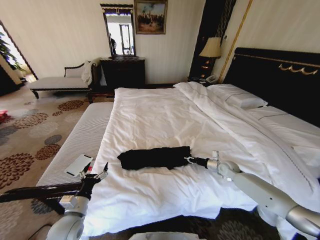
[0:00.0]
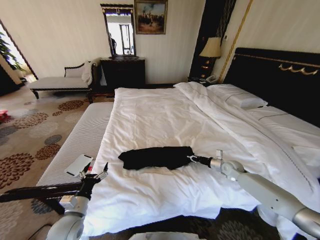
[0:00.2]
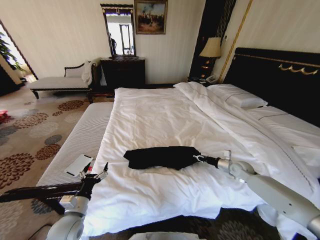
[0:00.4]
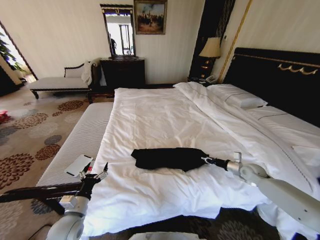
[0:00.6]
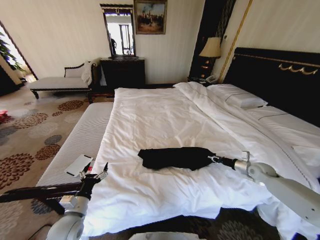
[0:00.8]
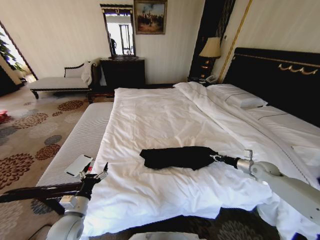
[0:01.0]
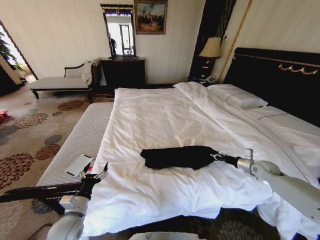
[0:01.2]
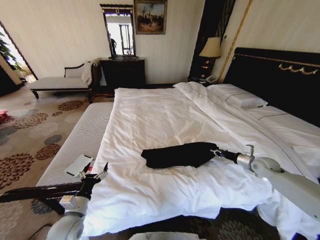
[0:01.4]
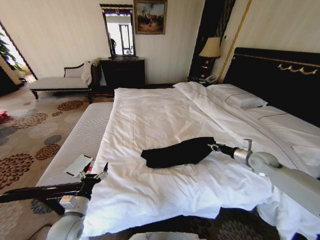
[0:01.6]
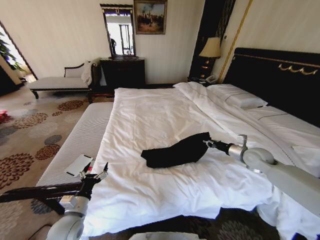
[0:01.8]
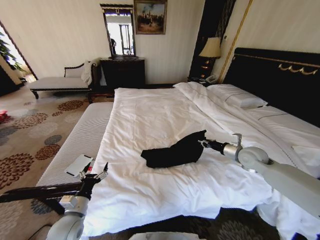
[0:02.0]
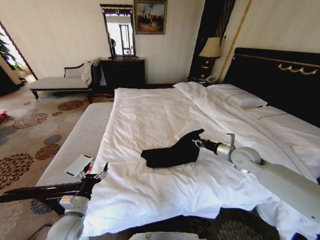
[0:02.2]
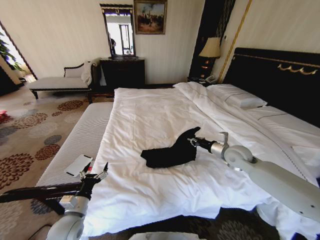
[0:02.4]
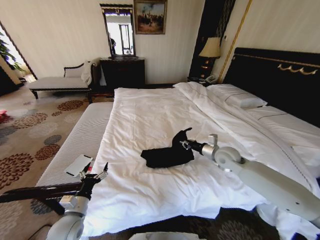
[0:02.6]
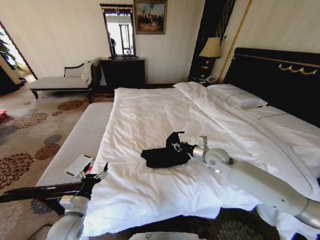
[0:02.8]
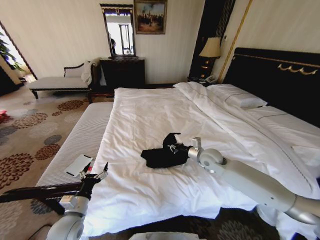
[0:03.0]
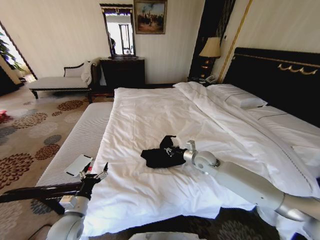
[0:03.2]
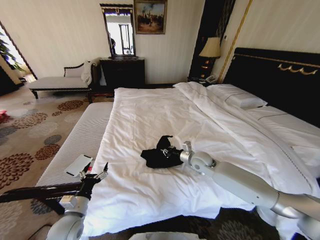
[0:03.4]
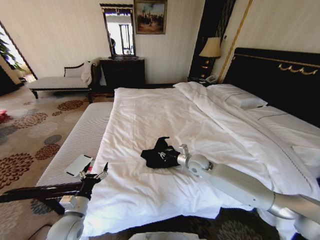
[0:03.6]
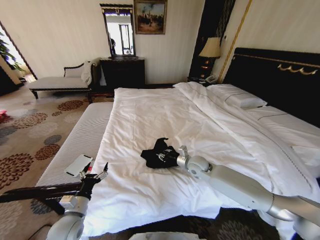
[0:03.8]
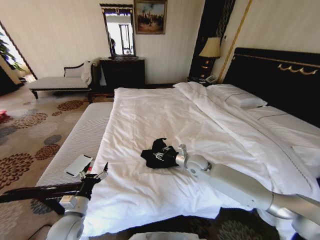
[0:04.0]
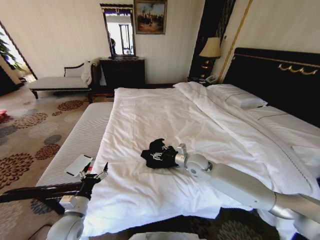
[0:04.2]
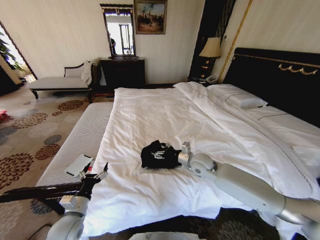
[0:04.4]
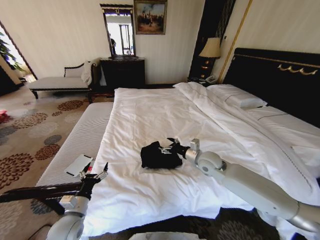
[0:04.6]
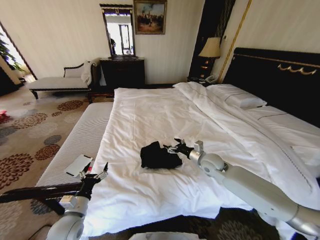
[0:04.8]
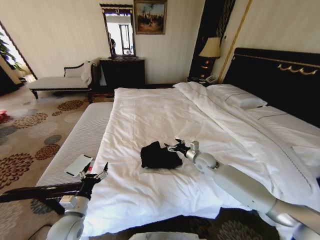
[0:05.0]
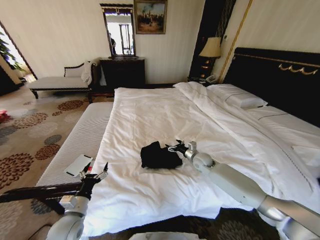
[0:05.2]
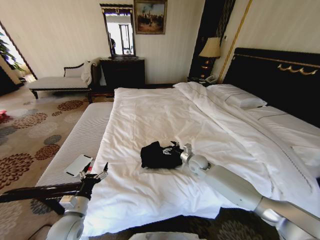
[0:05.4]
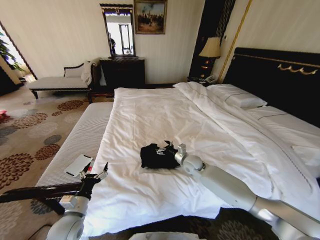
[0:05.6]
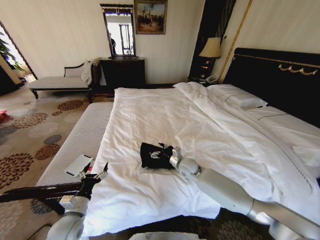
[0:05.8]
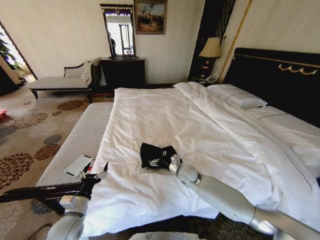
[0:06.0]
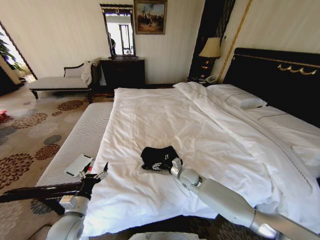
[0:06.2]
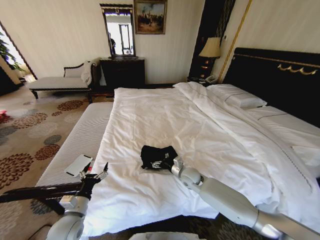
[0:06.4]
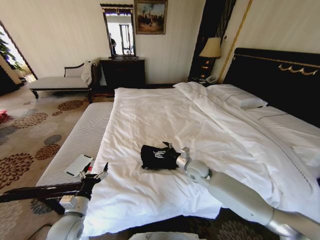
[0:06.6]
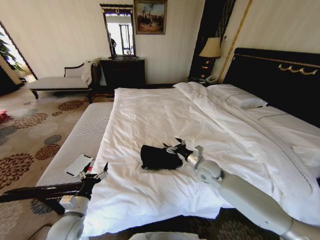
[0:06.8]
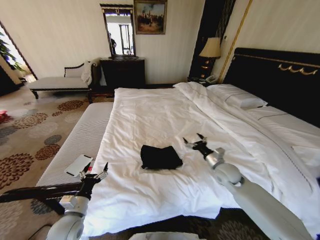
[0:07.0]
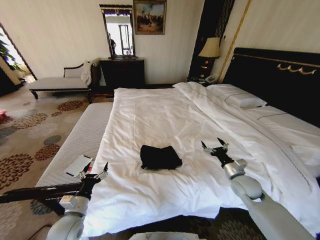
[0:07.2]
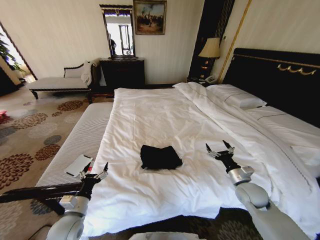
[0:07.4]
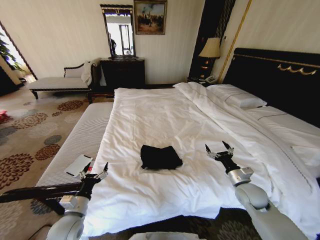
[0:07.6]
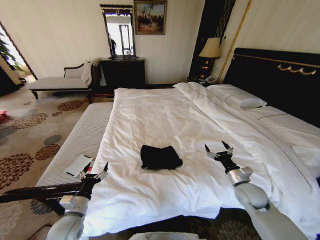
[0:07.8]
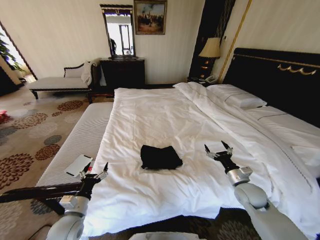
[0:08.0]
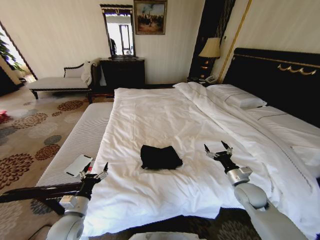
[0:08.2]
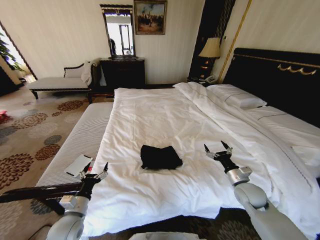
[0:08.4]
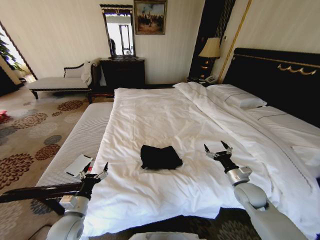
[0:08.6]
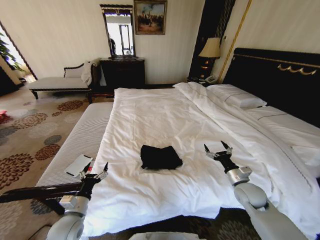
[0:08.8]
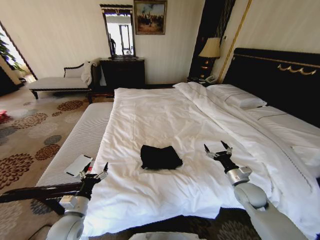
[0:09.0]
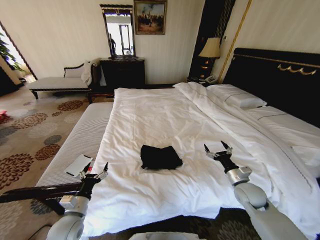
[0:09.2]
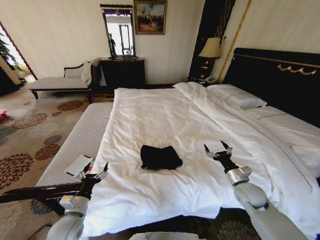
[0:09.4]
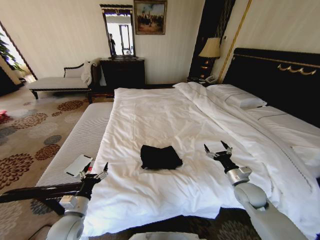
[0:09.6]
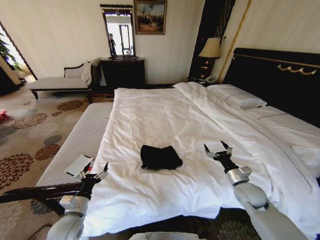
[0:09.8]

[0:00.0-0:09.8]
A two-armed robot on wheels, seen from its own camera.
Task of the whole recording: Fold the clothes on the bed.
0:00.0 to 0:01.4: The right gripper moves to the right and upward, some 15 cm.
0:01.4 to 0:02.8: The right gripper goes roughly 25 cm to the left.
0:02.8 to 0:04.2: The right gripper travels to the left by approximately 10 cm, and opens.
0:04.2 to 0:05.6: The right gripper heads downward, covering approximately 5 cm.
0:05.6 to 0:07.0: The right gripper goes roughly 15 cm to the right and backward.
0:07.0 to 0:08.4: The right gripper goes approximately 10 cm backward and to the right.
0:08.4 to 0:09.8: Both grippers stay about where they are.
